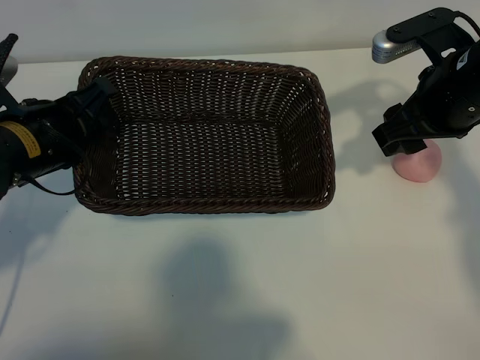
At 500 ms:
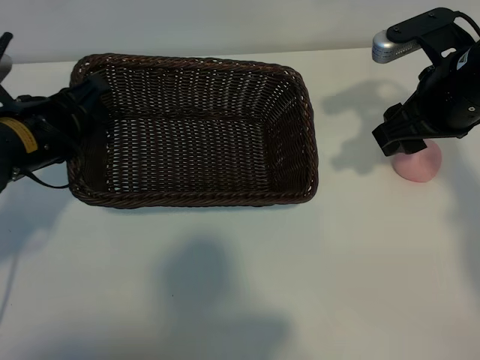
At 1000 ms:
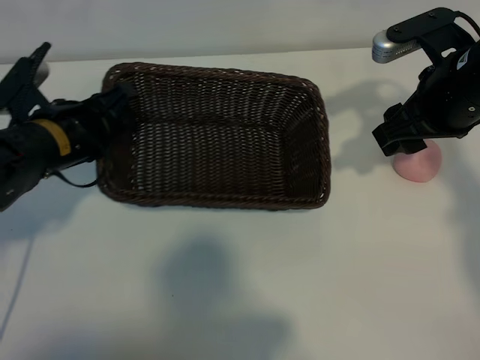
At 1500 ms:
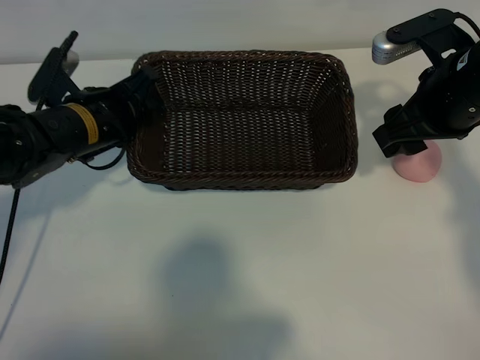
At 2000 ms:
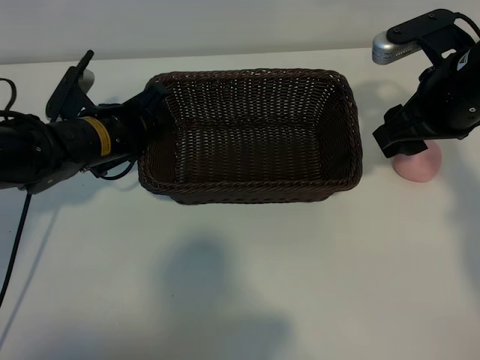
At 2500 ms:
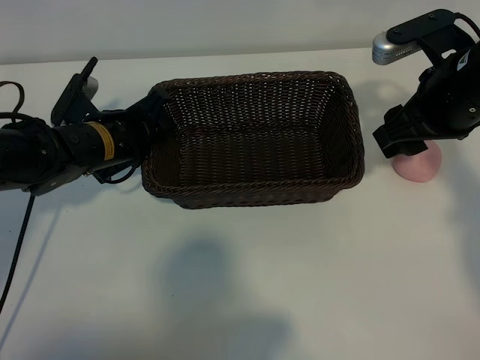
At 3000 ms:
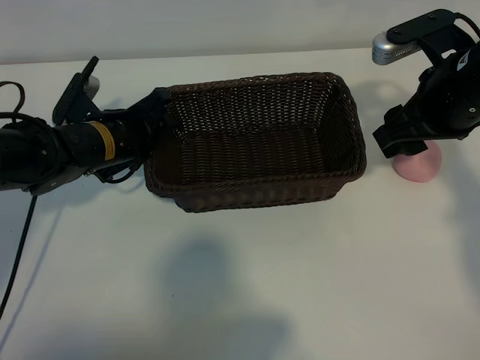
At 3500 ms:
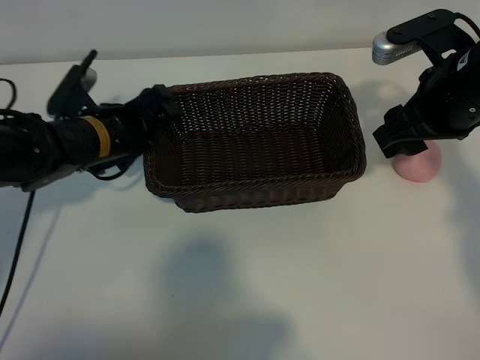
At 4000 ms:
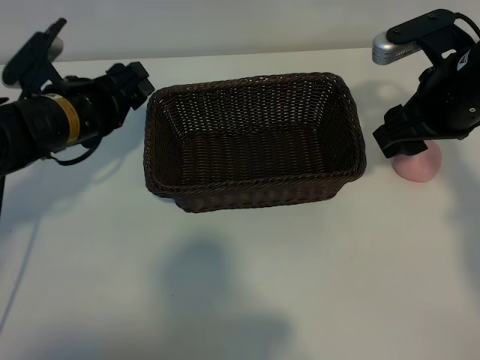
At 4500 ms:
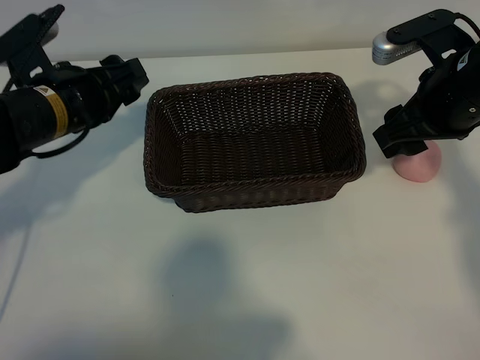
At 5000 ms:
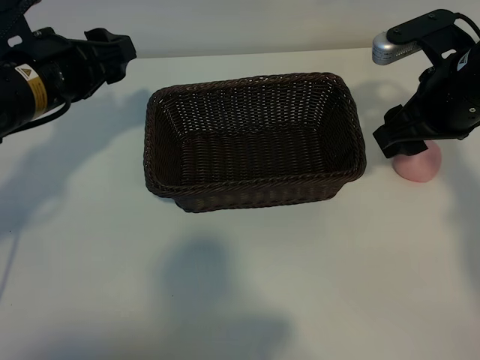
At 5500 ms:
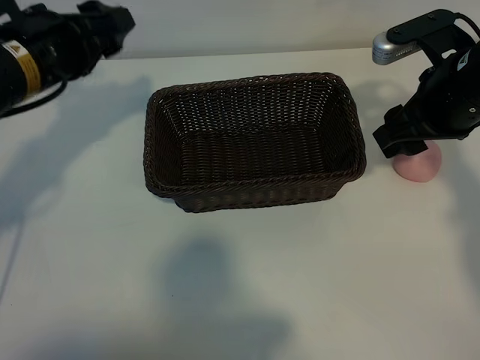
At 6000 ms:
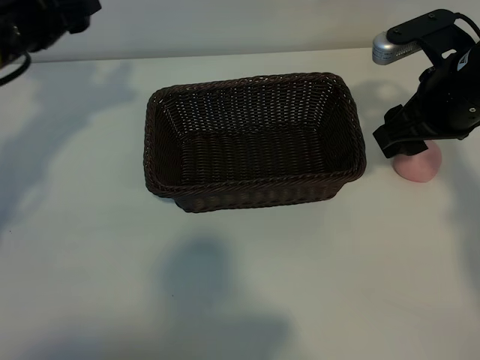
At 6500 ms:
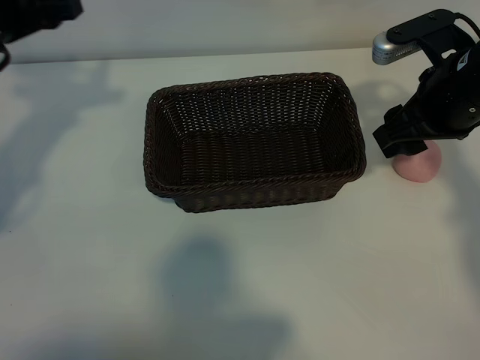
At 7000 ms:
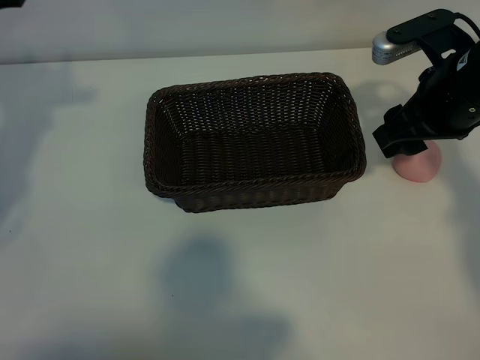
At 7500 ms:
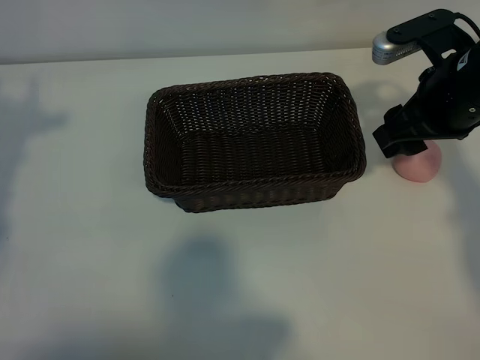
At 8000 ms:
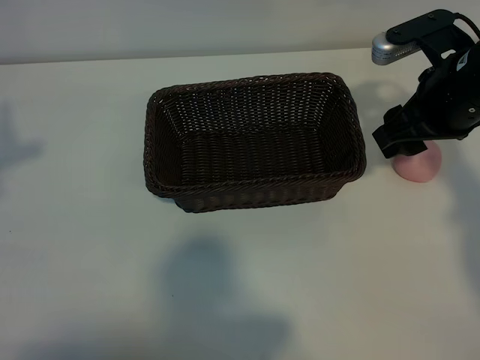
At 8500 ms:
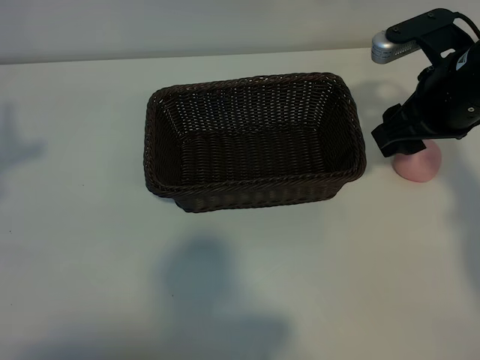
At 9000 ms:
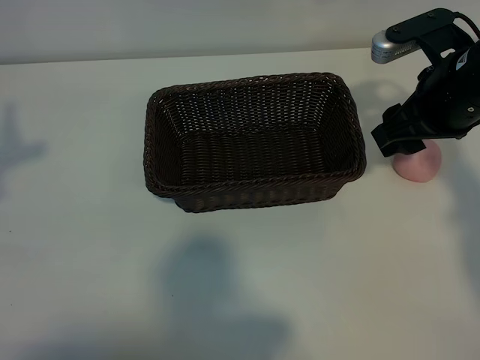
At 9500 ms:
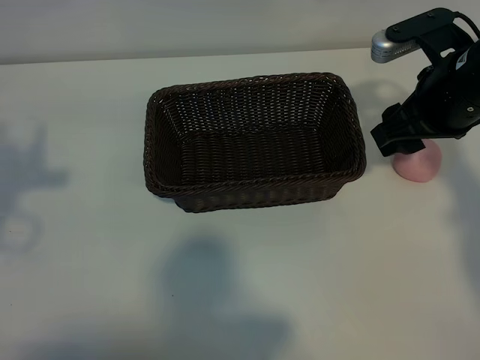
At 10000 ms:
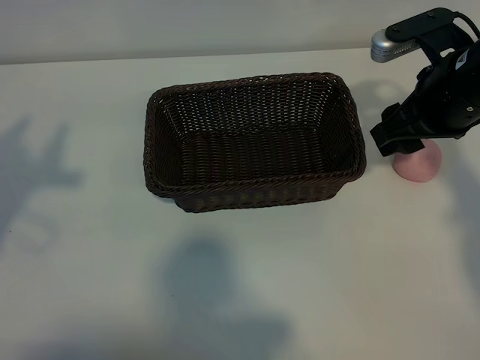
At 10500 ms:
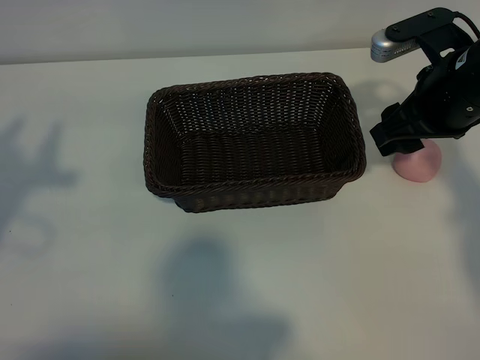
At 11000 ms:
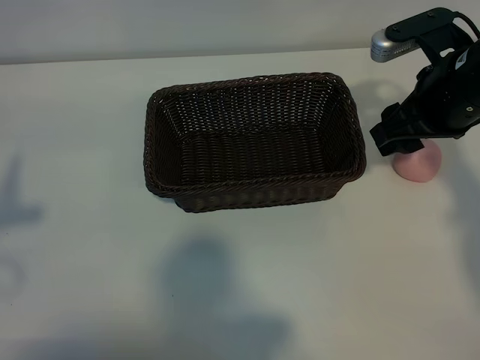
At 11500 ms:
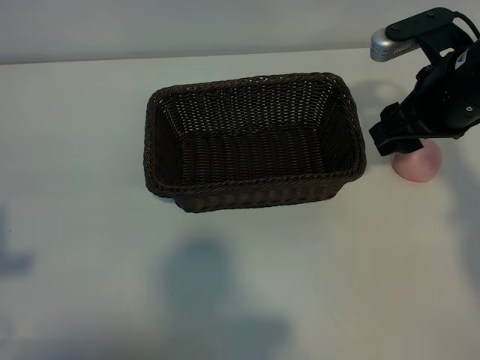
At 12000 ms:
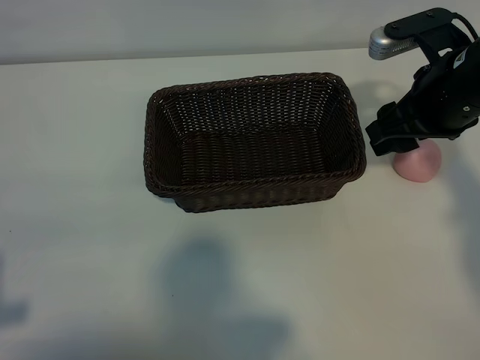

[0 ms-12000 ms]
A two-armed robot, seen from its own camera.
Task of the whole recording: pick up the peach and put it into the basket.
Step, 0 ms to 3500 ms: Place the basket in the center of view with left gripper.

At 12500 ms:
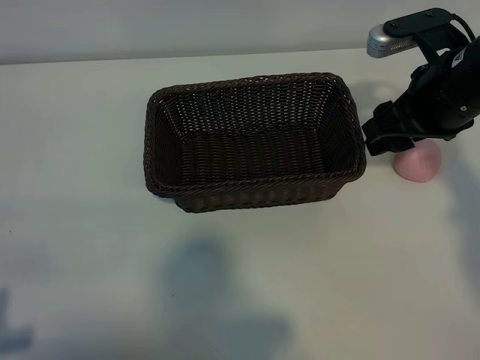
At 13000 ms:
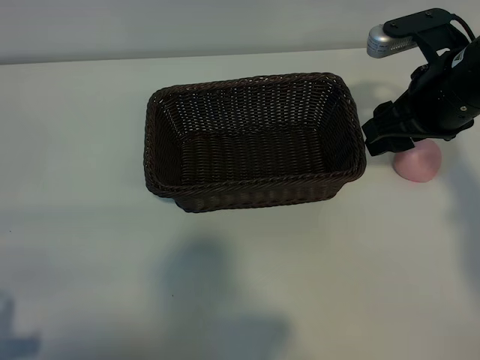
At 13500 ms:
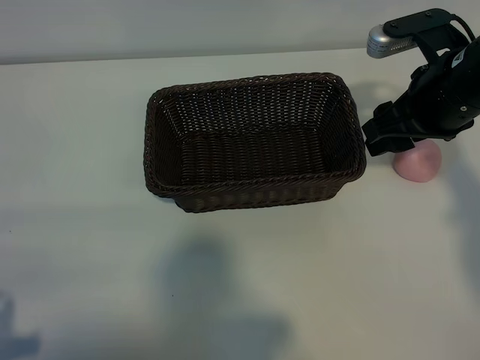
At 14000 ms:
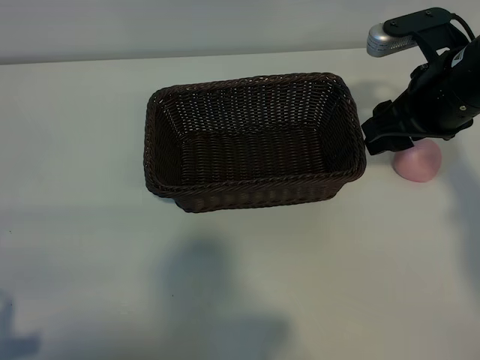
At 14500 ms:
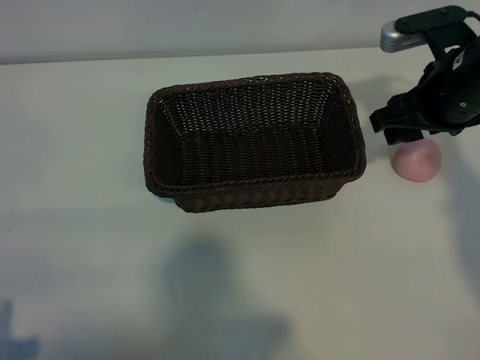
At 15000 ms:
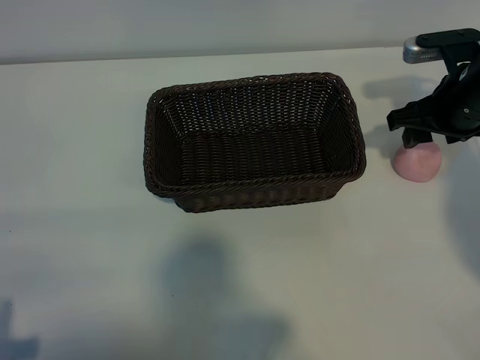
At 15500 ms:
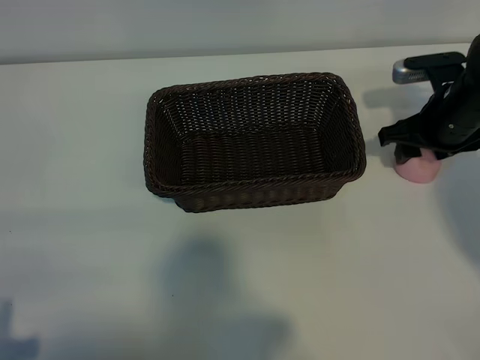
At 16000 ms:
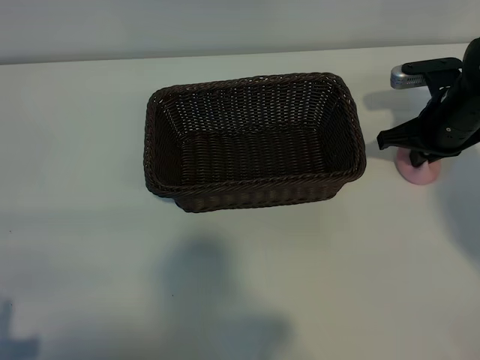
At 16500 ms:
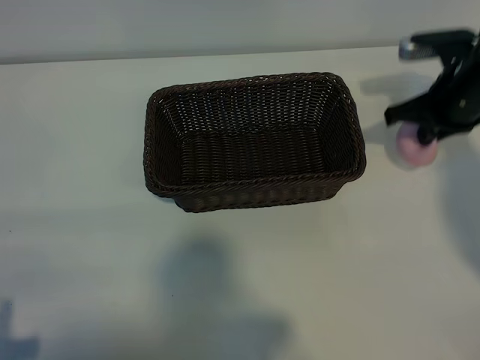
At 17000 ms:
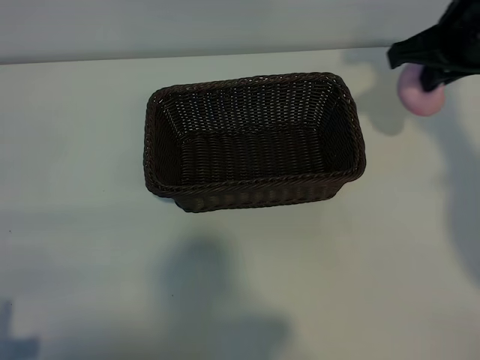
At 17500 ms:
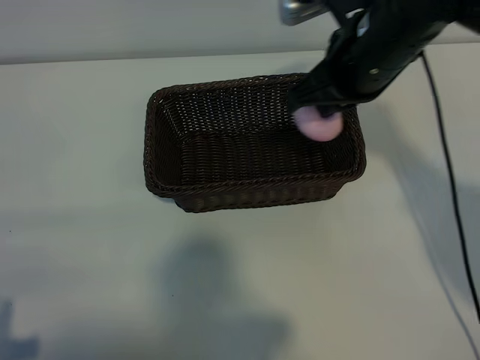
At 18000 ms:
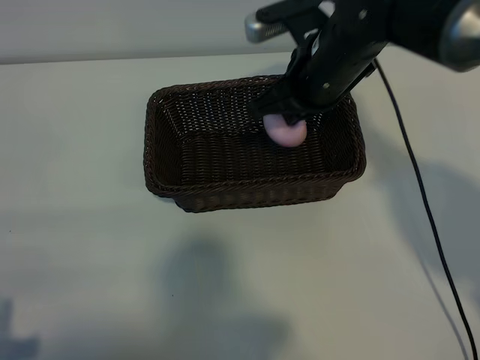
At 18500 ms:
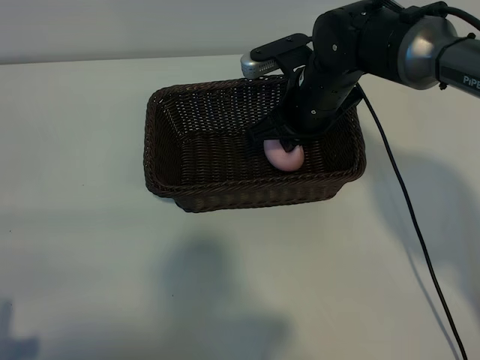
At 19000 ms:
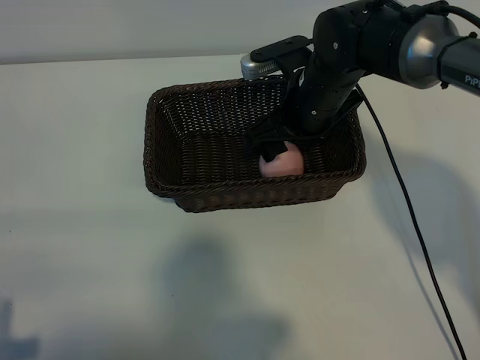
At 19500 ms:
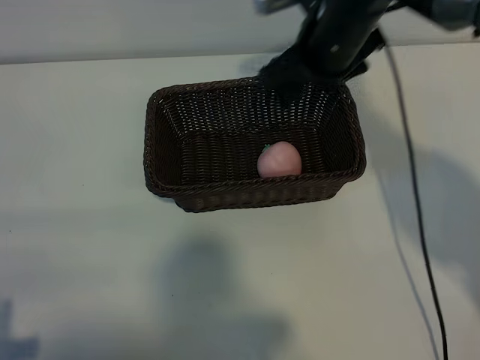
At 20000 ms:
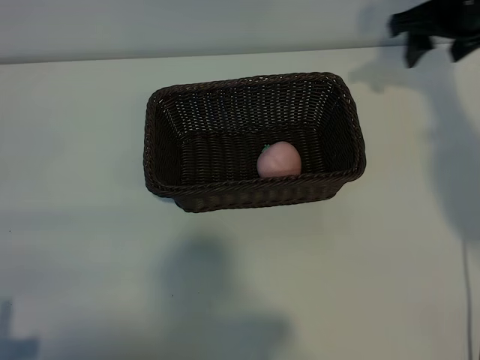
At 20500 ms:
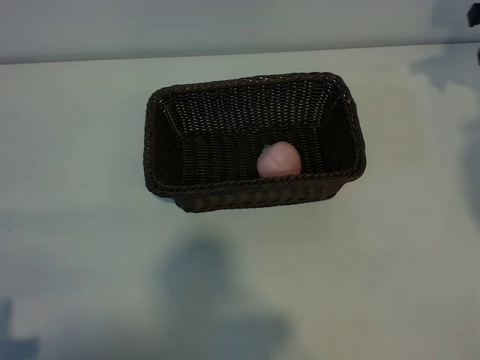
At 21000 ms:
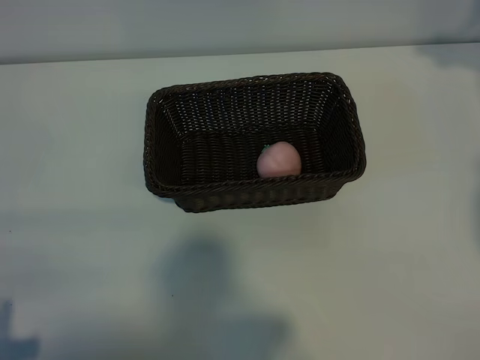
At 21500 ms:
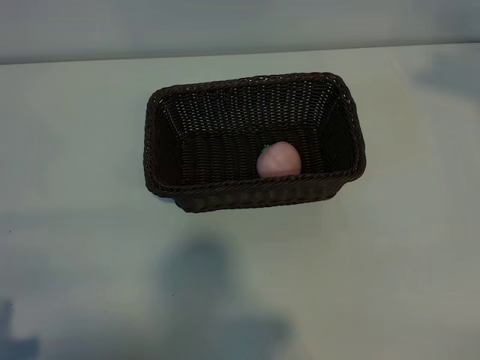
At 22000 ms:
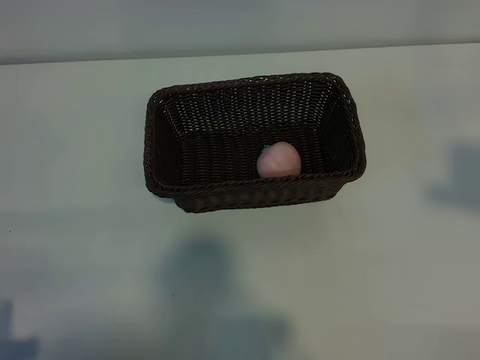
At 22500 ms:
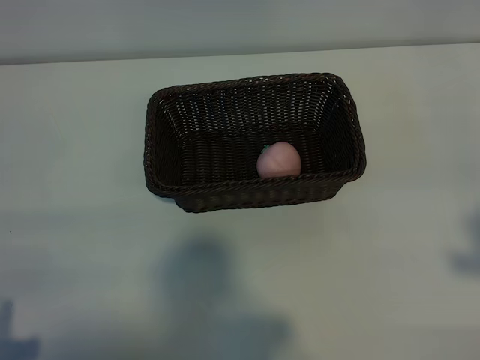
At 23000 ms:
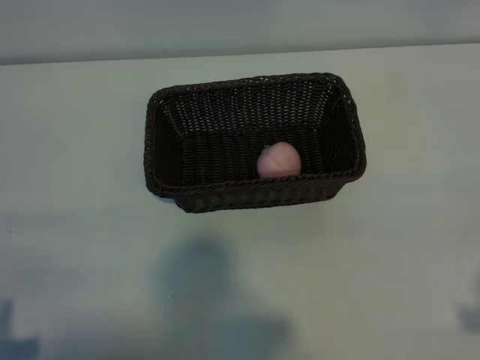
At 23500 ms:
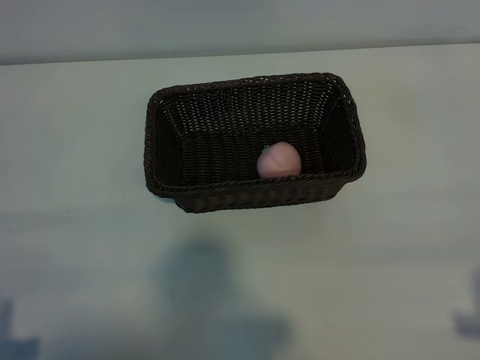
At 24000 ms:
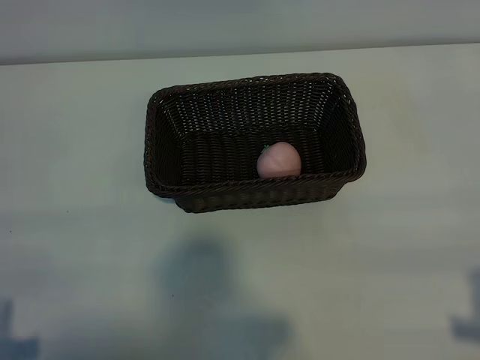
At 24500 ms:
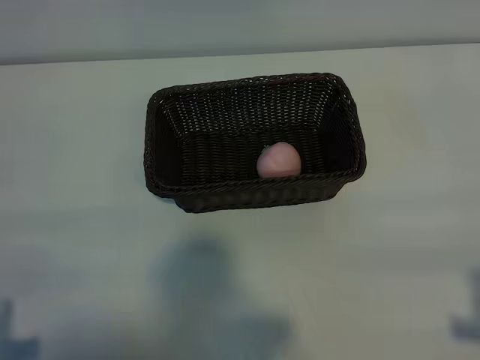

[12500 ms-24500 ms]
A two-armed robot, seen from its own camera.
Task of the whole recording: pick up the peach and put it into the basket.
Step, 12500 ms to 16000 ms: Grasp the peach with right gripper.
Step, 16500 ms to 19000 ms: Place the peach in the basket with right gripper.
